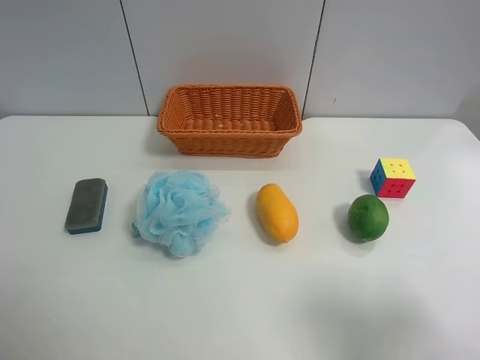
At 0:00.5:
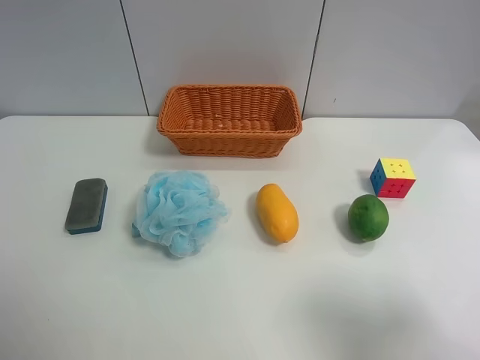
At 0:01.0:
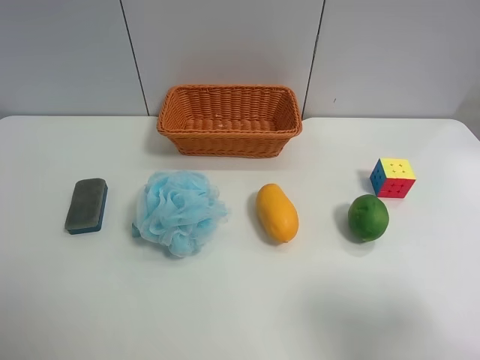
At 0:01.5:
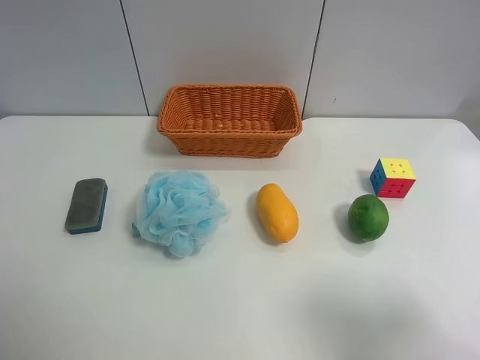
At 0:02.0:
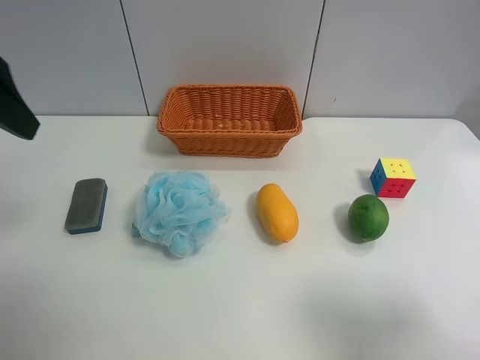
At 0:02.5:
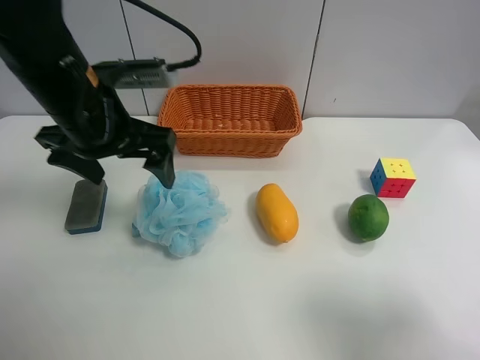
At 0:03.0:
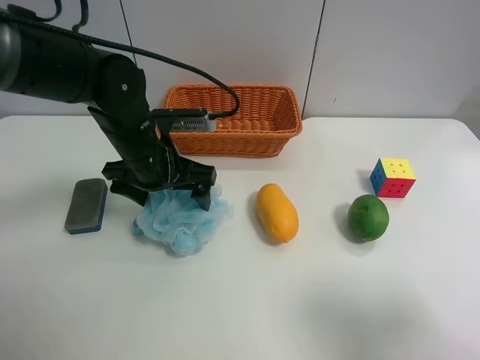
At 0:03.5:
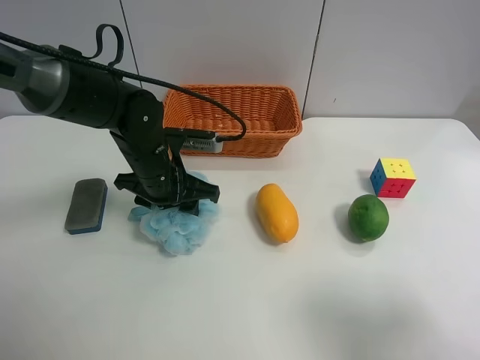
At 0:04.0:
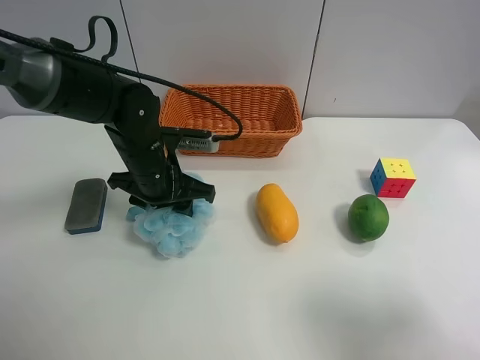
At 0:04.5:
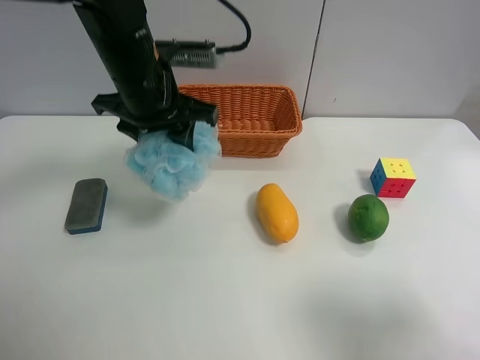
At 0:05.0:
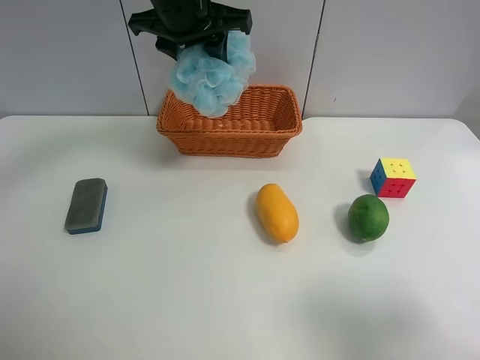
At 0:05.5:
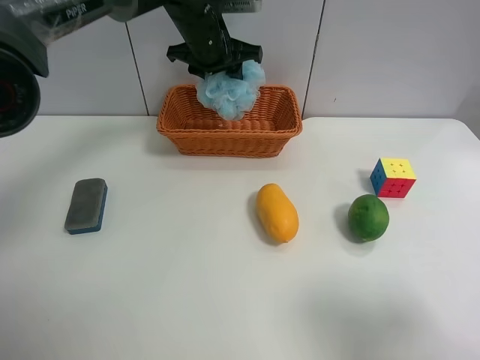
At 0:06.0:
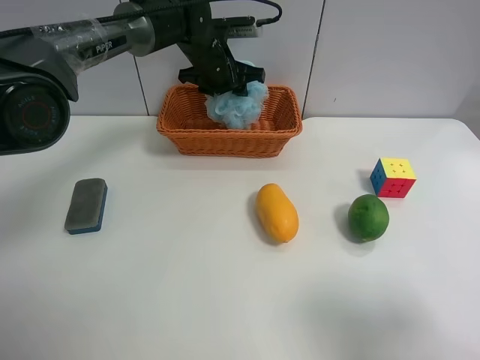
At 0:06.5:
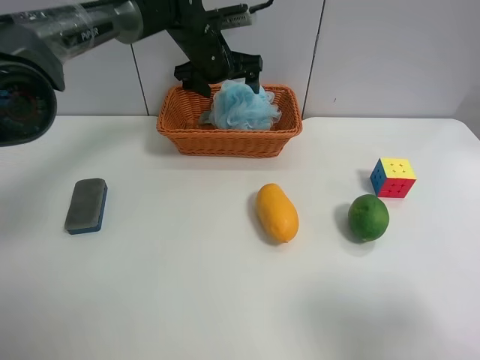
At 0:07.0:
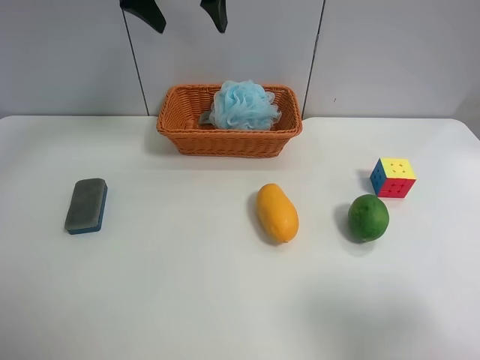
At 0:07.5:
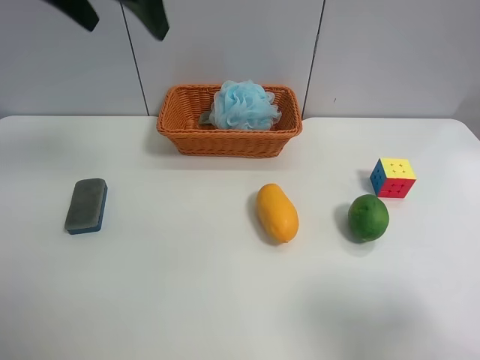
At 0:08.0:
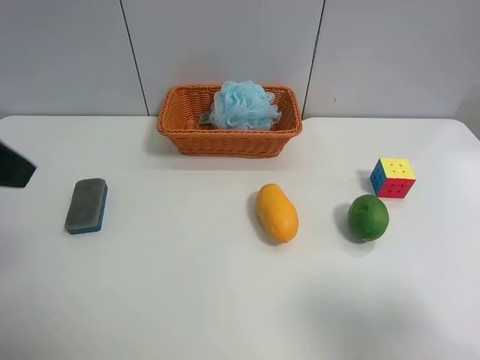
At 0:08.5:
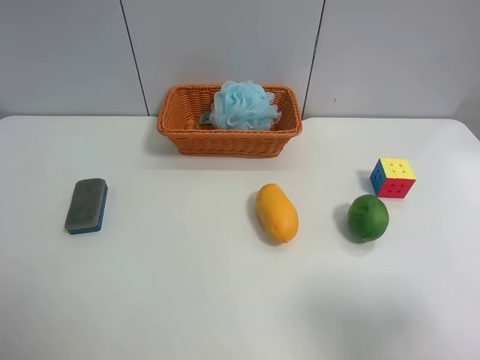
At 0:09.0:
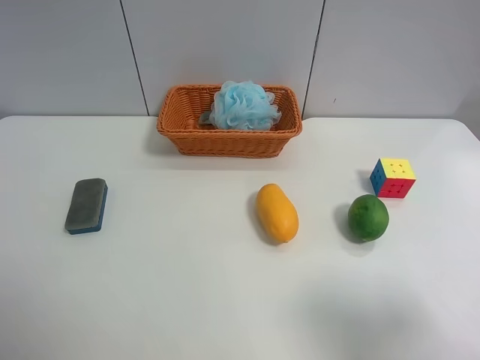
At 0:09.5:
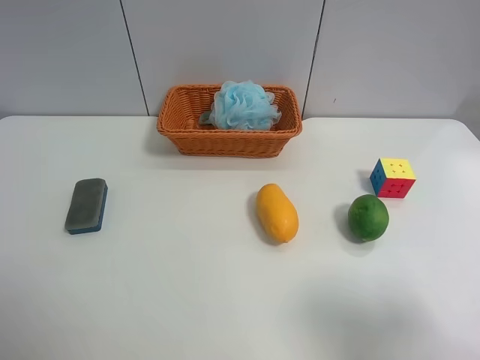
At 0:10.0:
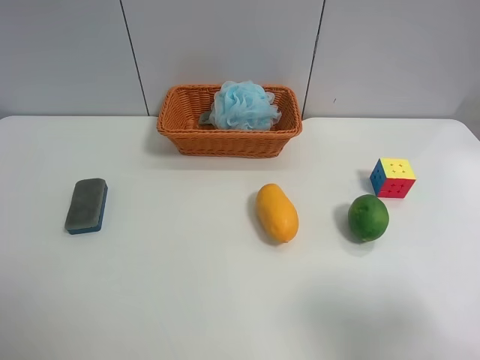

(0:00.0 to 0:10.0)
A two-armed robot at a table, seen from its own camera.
Task of the whole recording: use the left gripper to grab items from the table and place them in the basket.
Step, 0:00.0 - 0:04.0: Grasp the Shower puff with the left gripper.
Step, 0:04.5 - 0:06.0: Place the Shower puff into the basket with the left gripper.
0:00.0 - 0:02.0: The left gripper goes approximately 20 cm forward.
0:02.0 - 0:04.0: The left gripper is displaced downward, to the right and forward by roughly 30 cm, and closes.
0:04.0 - 0:06.0: The left gripper goes roughly 20 cm forward.
0:06.0 - 0:08.0: The left gripper shifts about 40 cm backward, to the left and upward, and opens up.
0:08.0 - 0:10.0: The left gripper is displaced backward, downward and to the left by approximately 15 cm.
